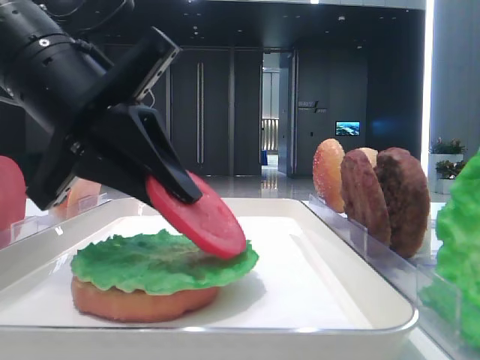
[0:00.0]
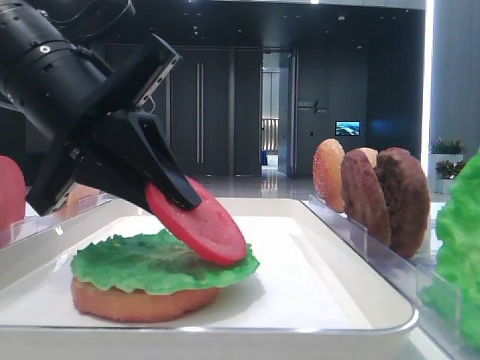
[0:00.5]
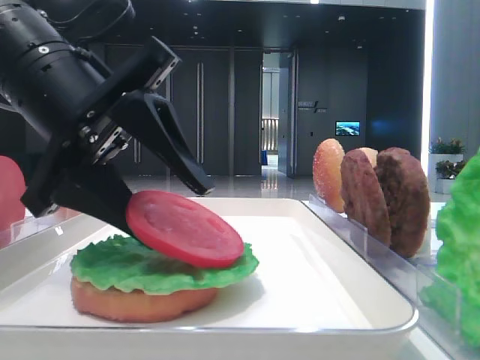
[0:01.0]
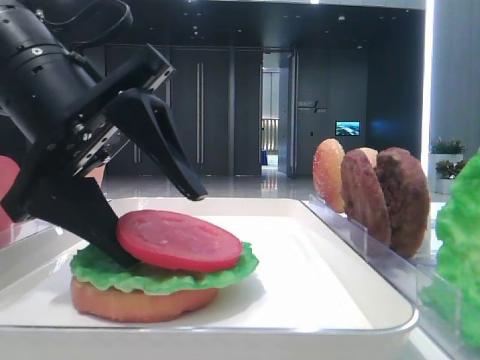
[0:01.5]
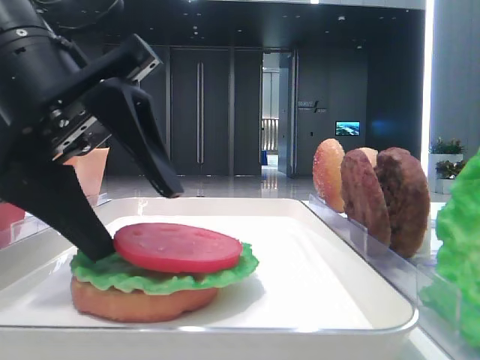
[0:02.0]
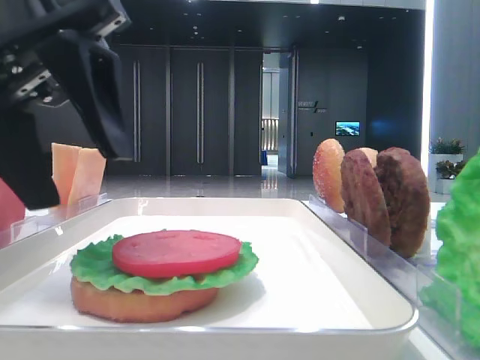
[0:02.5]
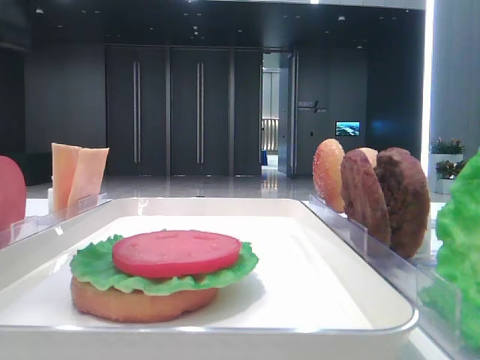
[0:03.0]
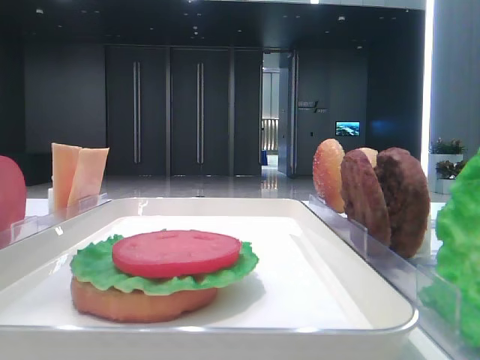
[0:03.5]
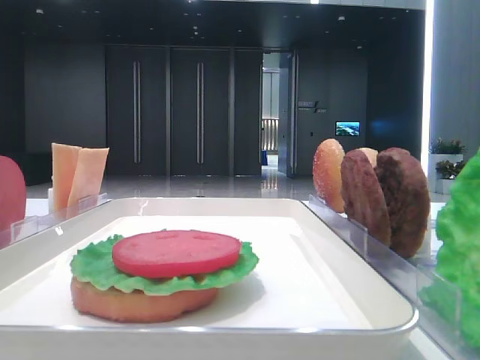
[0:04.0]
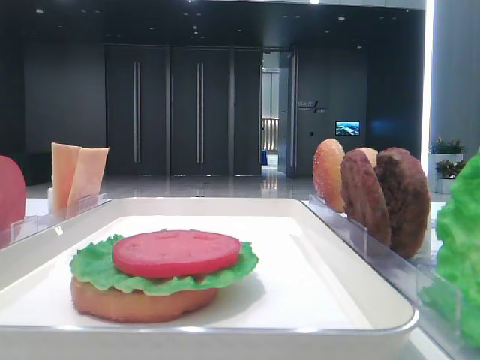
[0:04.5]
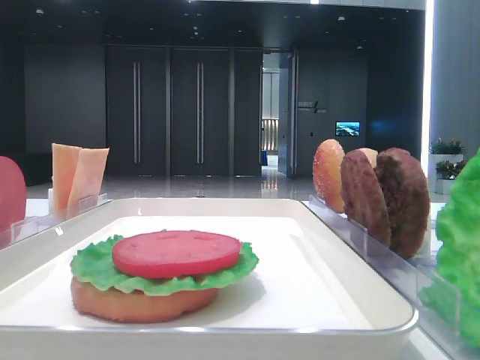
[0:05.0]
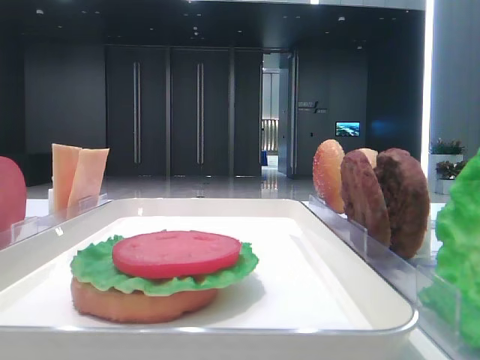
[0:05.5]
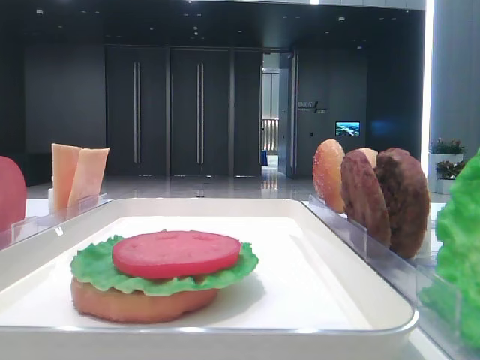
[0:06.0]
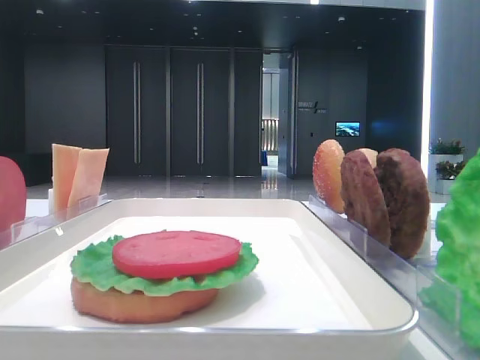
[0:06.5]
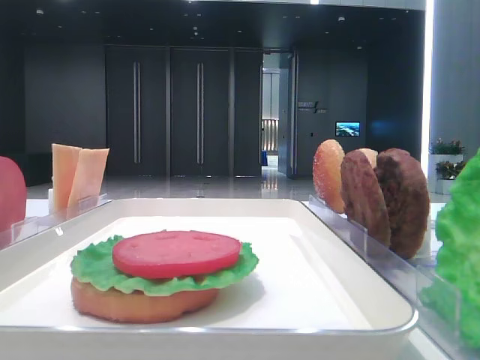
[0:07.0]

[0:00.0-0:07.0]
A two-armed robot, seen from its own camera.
Step, 0:00.0 to 0:02.0: Place the tomato slice on the lettuce leaf with the left hand.
0:00.0 to 0:02.0: The left gripper opens.
0:02.0 to 0:03.5: The left gripper is displaced upward and to the left by approximately 15 cm.
0:03.5 to 0:05.0: The left gripper moves to the left, backward and upward, approximately 20 cm.

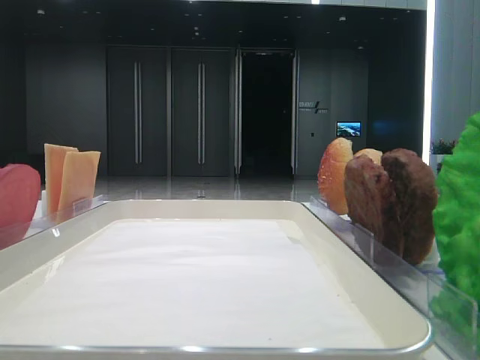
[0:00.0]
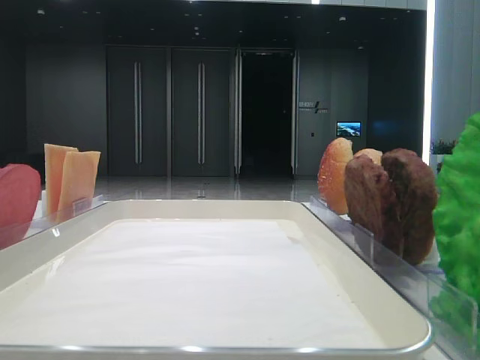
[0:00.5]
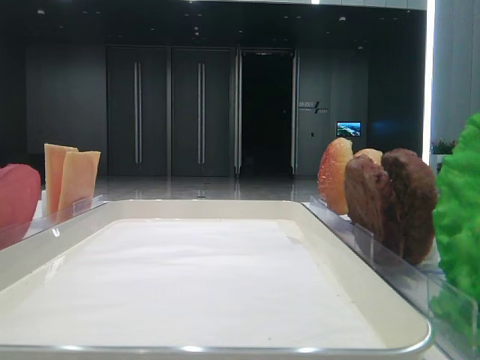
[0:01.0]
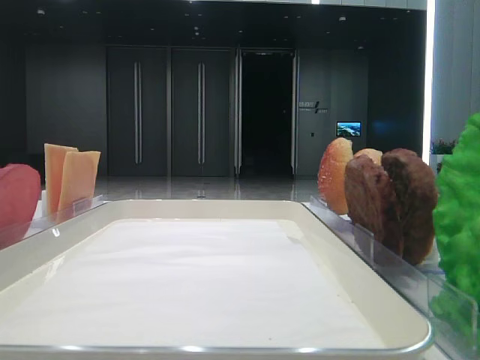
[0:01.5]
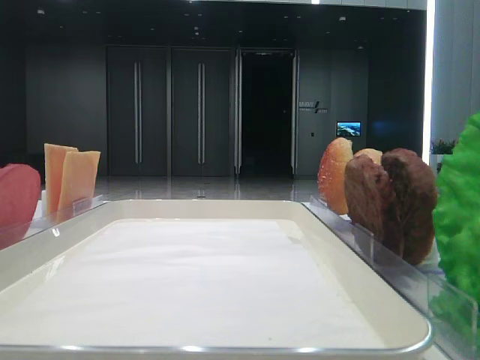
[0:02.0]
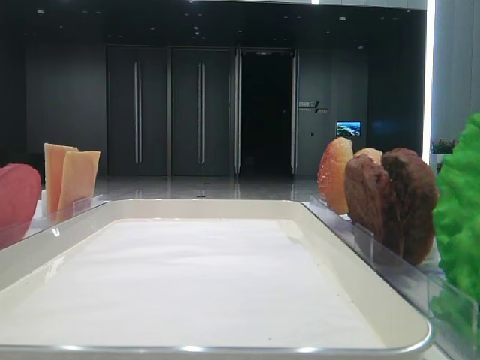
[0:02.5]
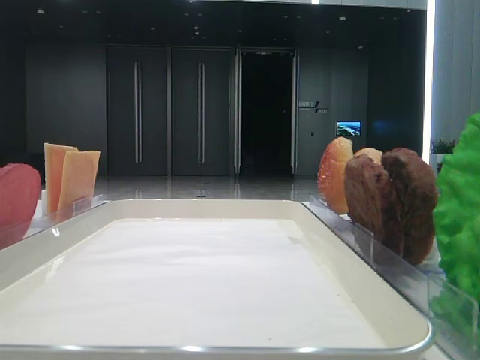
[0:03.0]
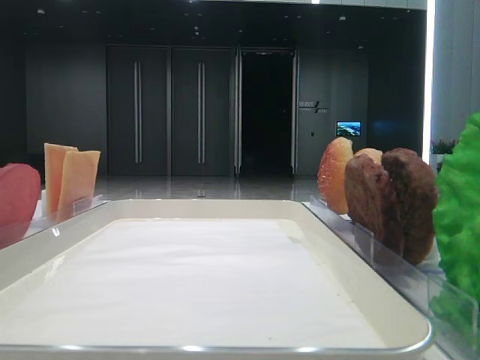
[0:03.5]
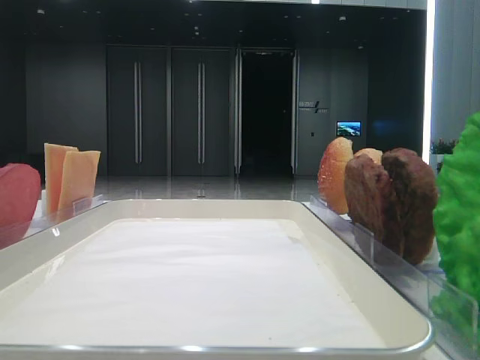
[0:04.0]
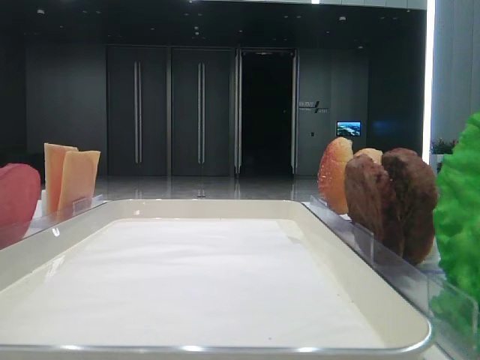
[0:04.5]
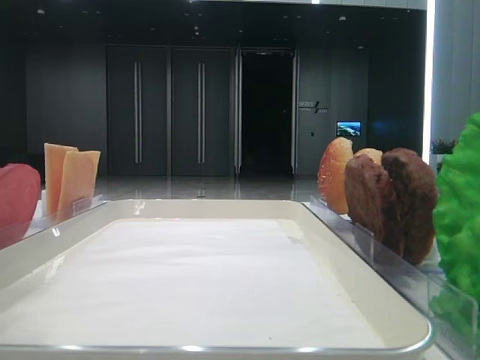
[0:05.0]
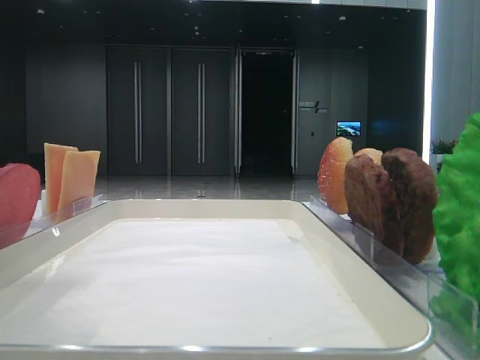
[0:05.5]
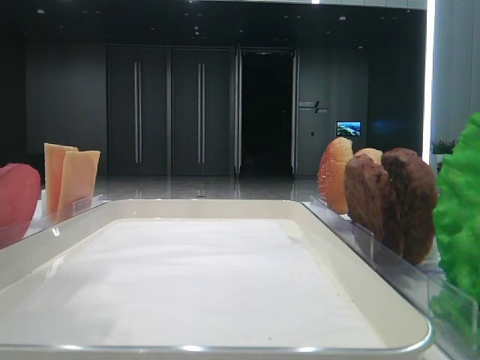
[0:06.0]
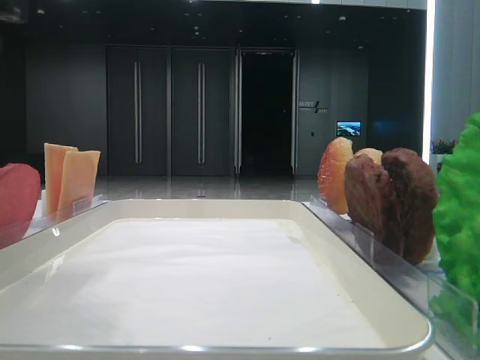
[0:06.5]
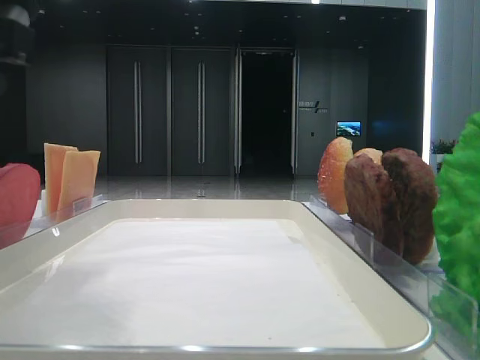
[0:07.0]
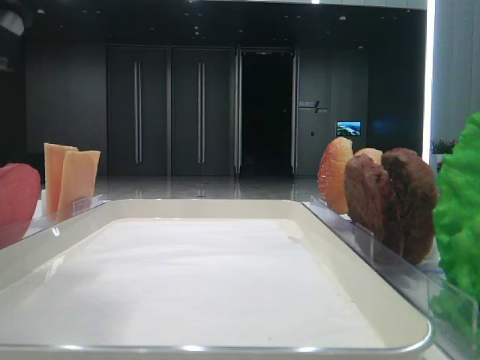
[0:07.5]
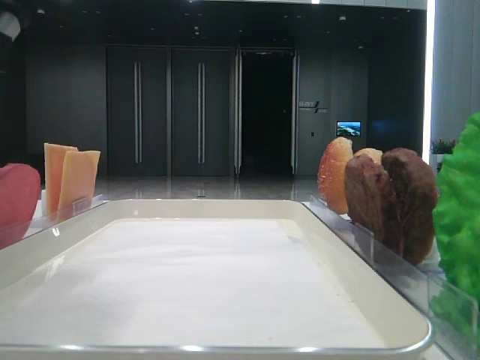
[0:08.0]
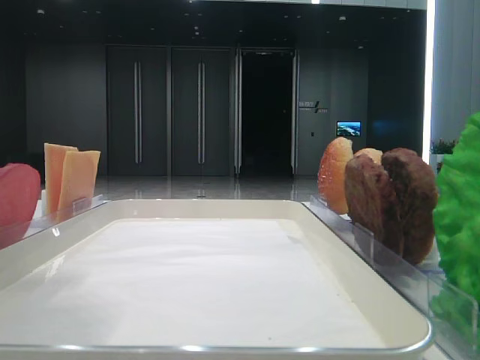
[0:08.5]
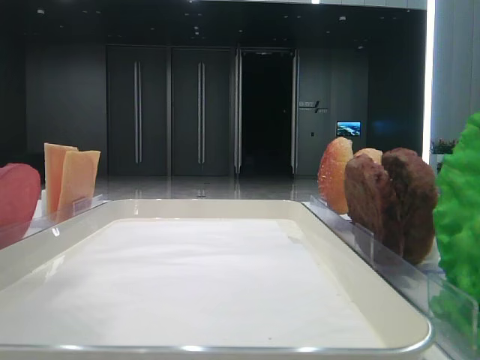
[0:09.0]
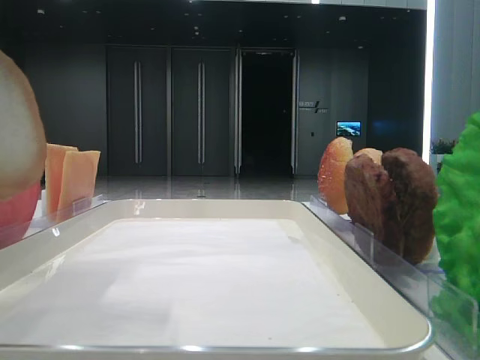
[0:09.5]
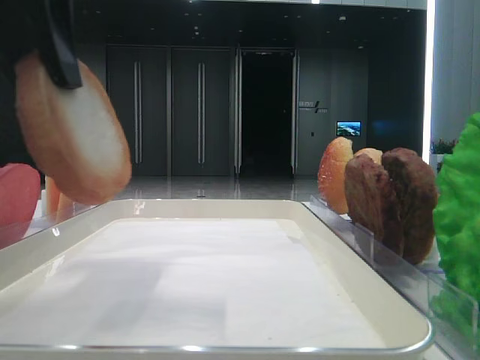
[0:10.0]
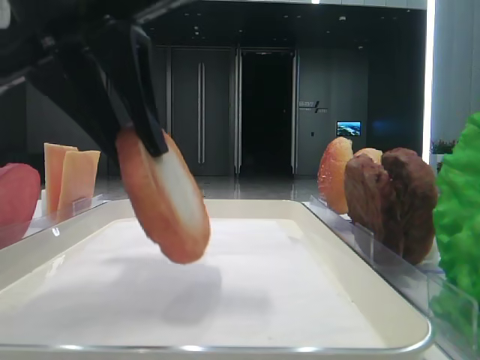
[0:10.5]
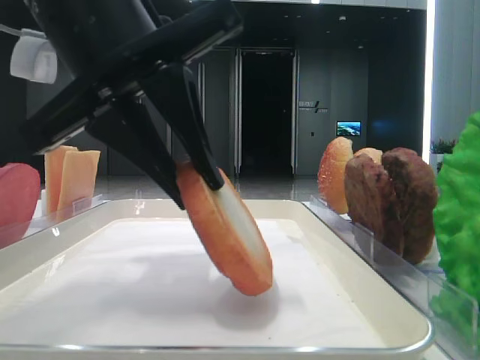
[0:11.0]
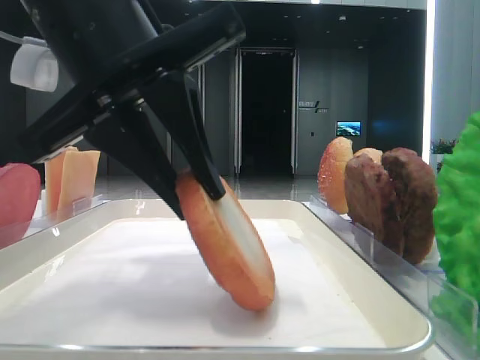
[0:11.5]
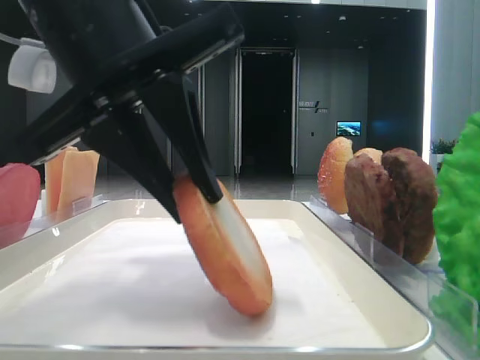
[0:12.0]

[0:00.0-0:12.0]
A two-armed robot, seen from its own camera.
Step, 0:00.0 to 0:08.0: Pick up the bottom bread with the left hand.
0:04.0 to 0:06.0: The left gripper shifts some 15 cm to the right.
0:08.0 to 0:10.0: The left gripper shifts some 5 cm upward.
0:10.0 to 0:12.0: The left gripper is displaced downward and to the right by approximately 10 cm.

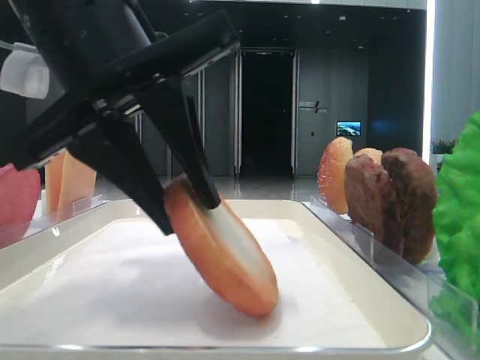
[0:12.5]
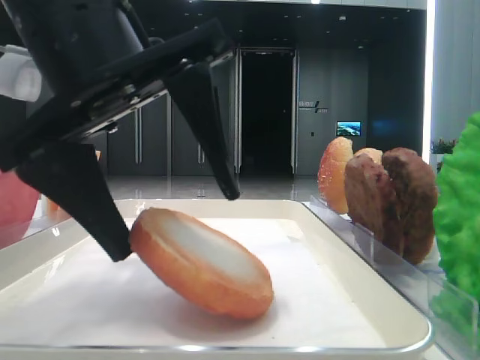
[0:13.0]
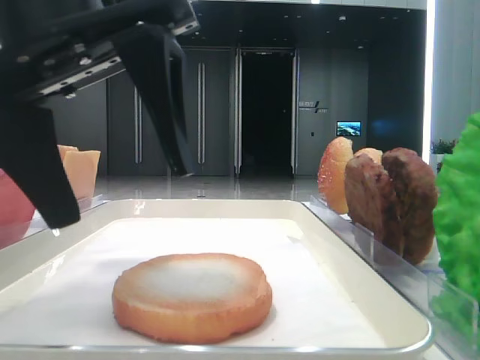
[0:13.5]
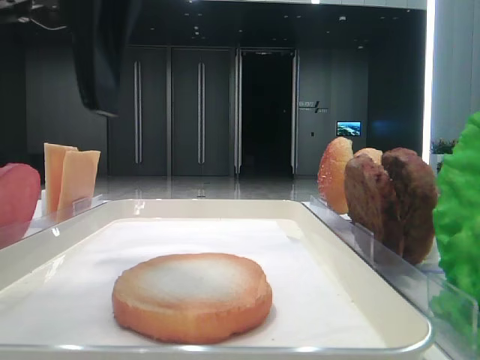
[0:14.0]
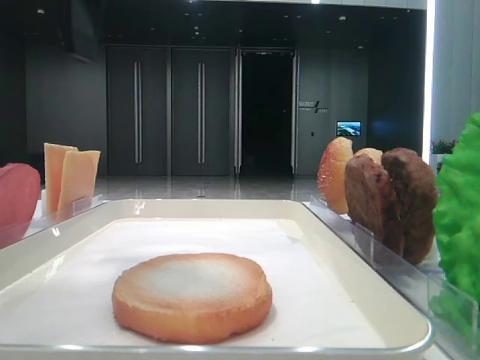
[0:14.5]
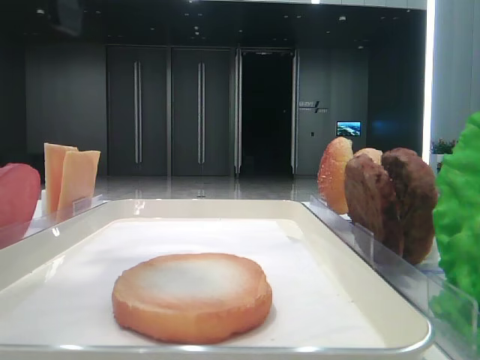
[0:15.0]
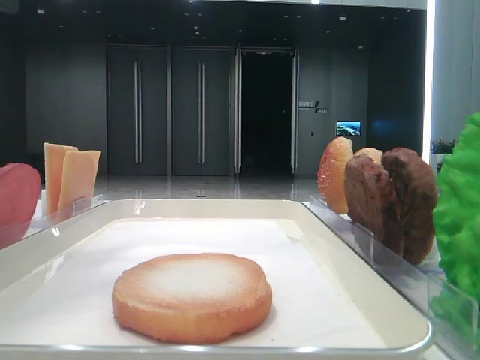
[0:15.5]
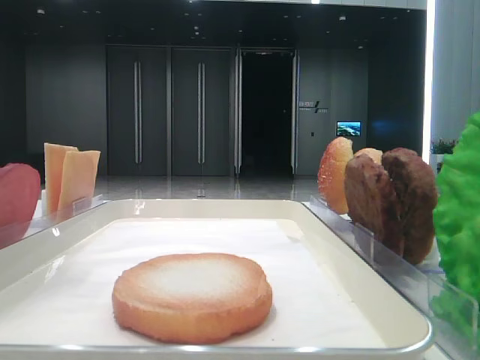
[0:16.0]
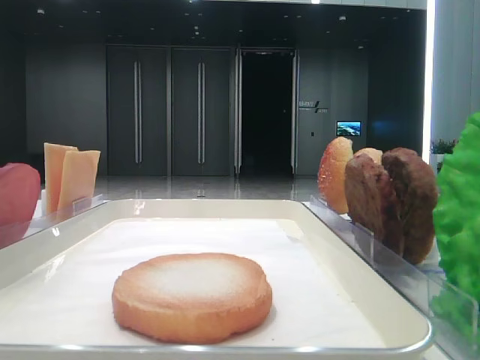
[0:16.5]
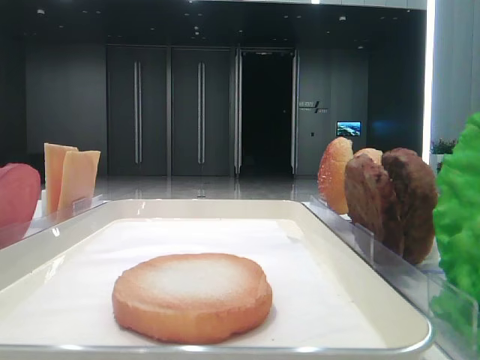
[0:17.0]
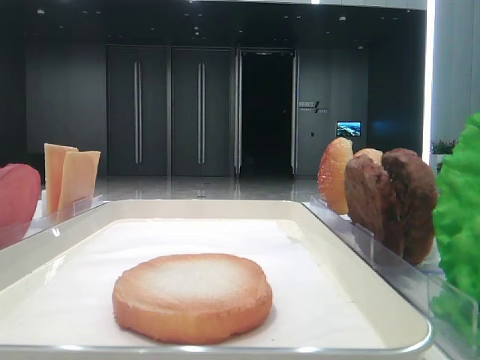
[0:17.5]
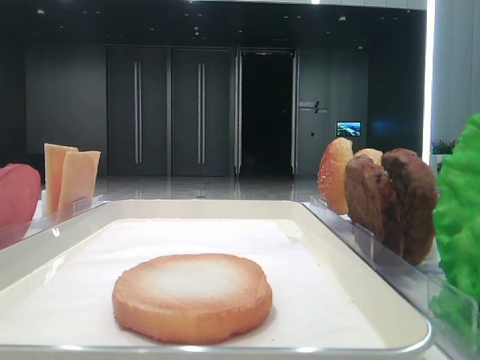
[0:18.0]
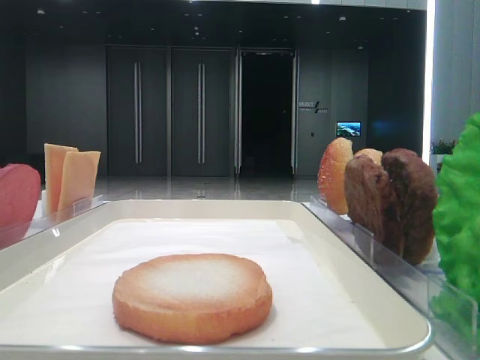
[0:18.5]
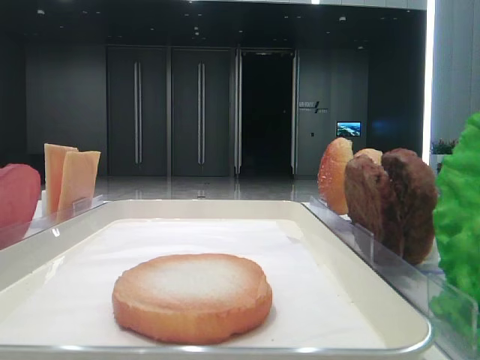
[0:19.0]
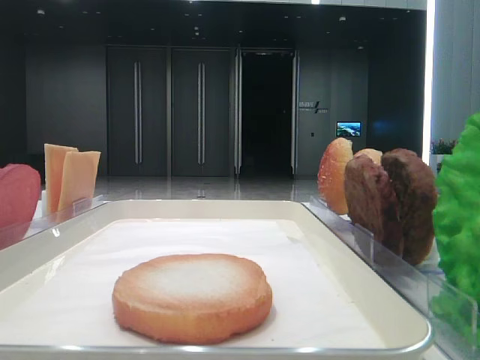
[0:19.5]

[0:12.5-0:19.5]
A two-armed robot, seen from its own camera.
0:12.5 to 0:14.5: The left gripper shifts roughly 10 cm upward, and opens its fingers.
0:14.5 to 0:16.0: The left gripper moves to the left and upward, about 10 cm.
0:16.0 to 0:17.5: The left gripper is displaced backward and to the left by some 15 cm.
